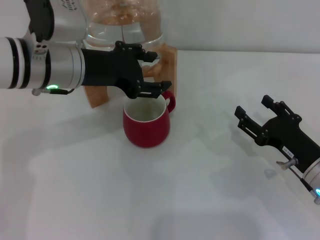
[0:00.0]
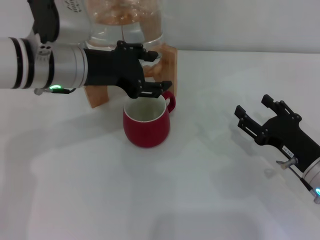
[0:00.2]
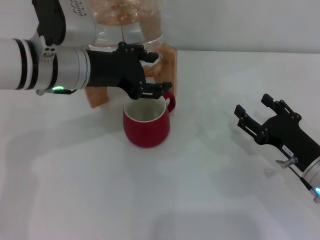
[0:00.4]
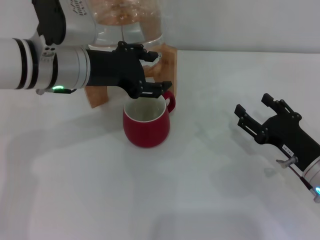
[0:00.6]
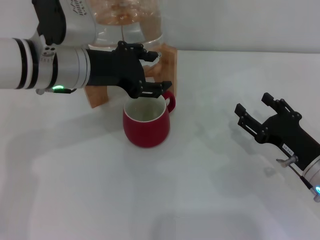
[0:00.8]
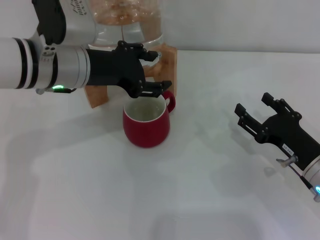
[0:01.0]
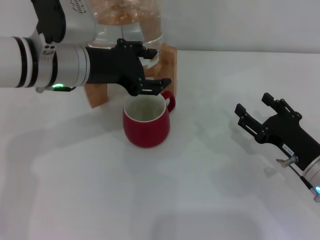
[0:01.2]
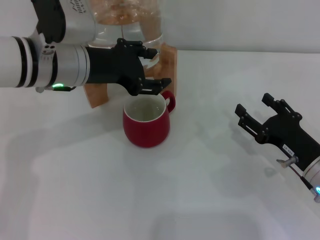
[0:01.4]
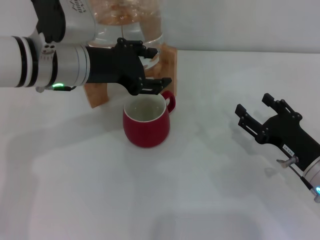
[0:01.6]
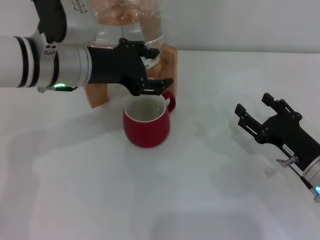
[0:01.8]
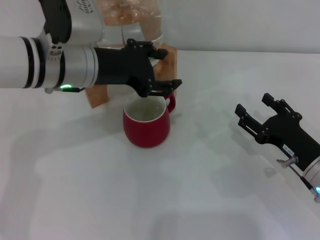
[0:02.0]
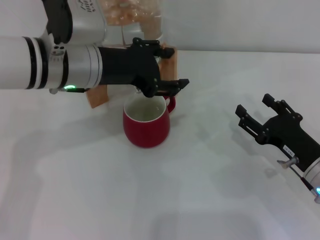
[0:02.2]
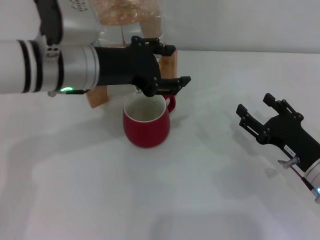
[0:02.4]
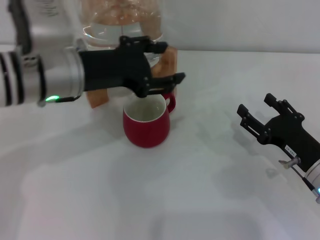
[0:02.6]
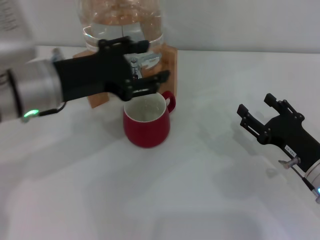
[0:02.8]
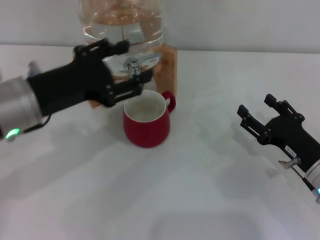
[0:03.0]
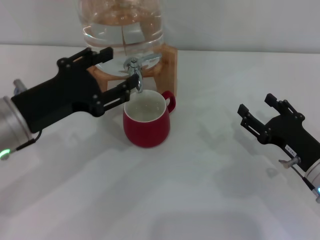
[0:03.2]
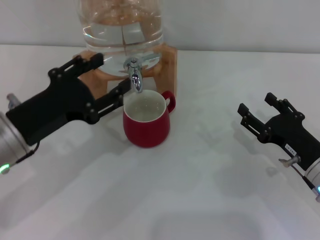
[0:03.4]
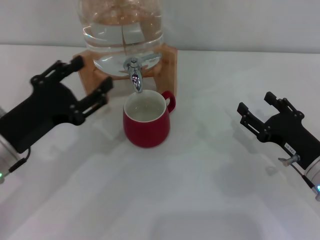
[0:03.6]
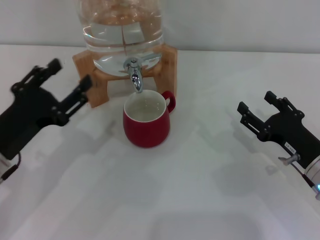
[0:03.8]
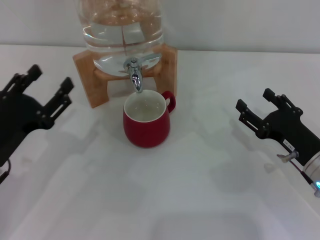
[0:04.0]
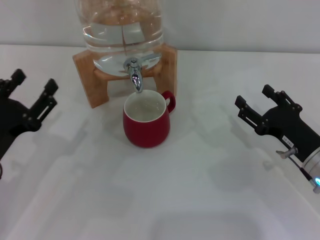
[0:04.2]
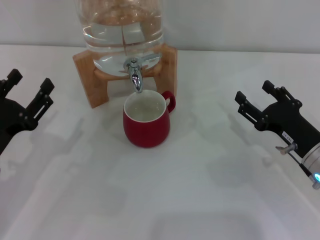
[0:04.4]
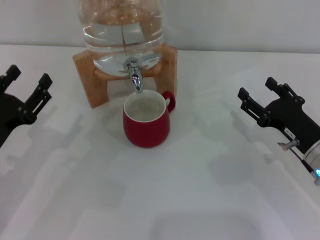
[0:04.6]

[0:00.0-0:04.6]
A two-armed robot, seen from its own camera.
Task of the whole recording: the right gripper pick up the red cup and place it horizontally under the faucet, the left gripper turn on the faucet to fill the cup, and then turn off the faucet.
Step, 0:00.0 to 0:02.4: Close the dispenser valve with the left gripper.
0:00.0 to 0:01.6: Both grippers stay put.
0:01.6 to 0:03.0: The left gripper shifts approximately 10 cm backward.
0:03.0 to 0:04.6: The left gripper heads downward and to the left, covering approximately 10 cm.
